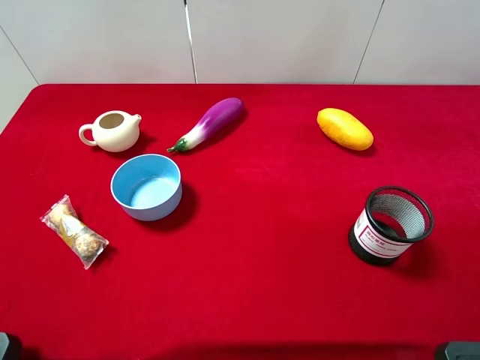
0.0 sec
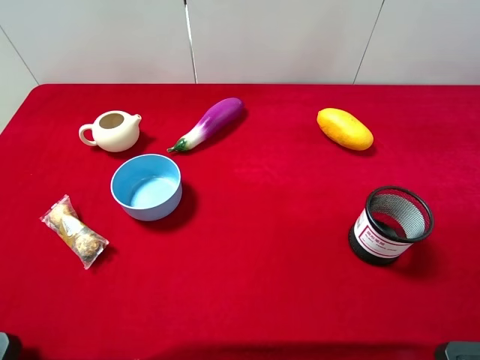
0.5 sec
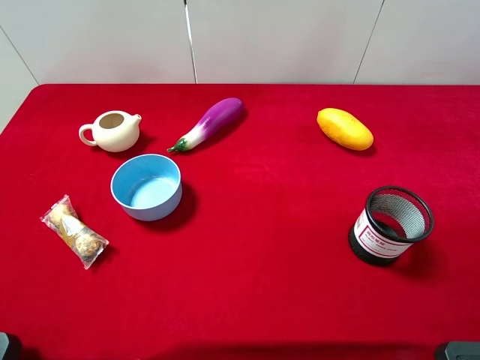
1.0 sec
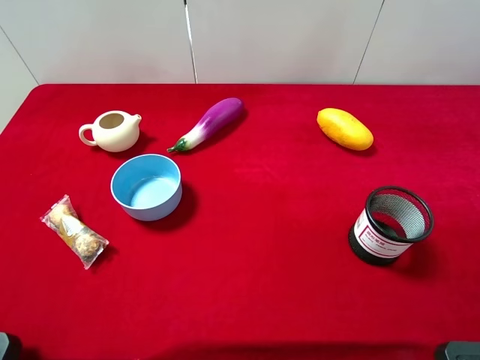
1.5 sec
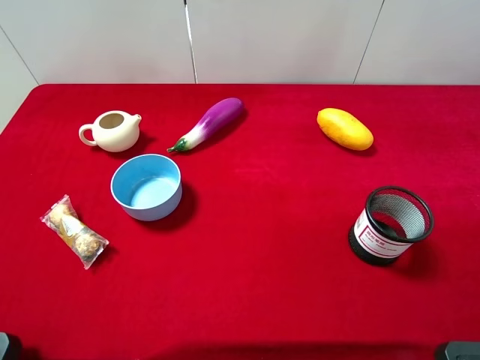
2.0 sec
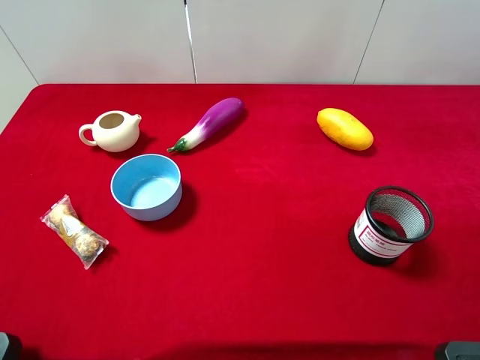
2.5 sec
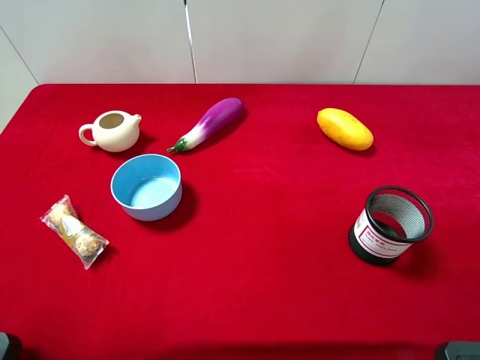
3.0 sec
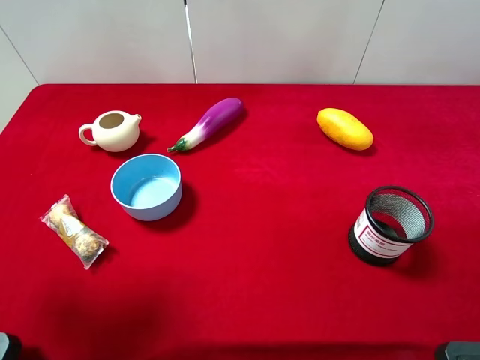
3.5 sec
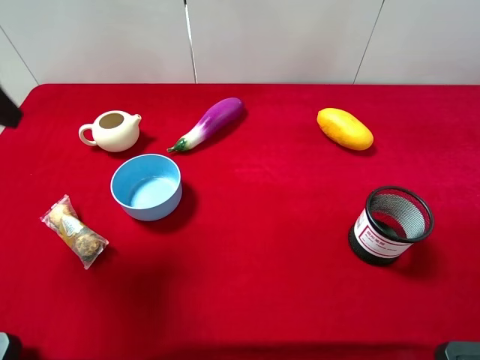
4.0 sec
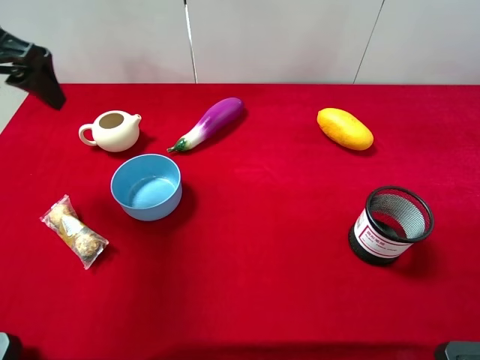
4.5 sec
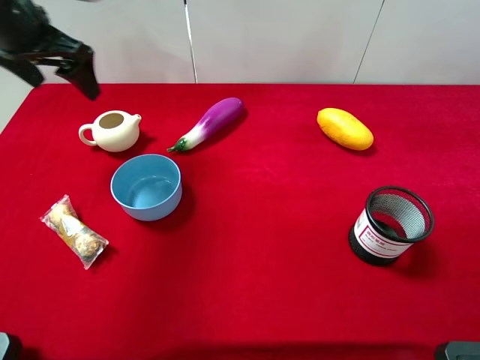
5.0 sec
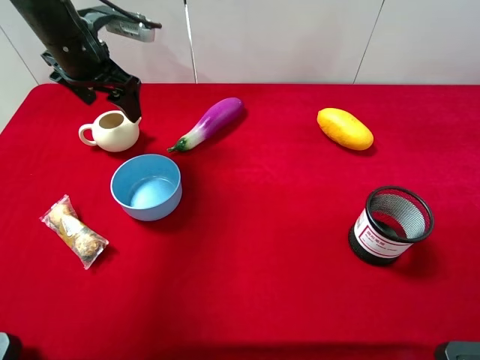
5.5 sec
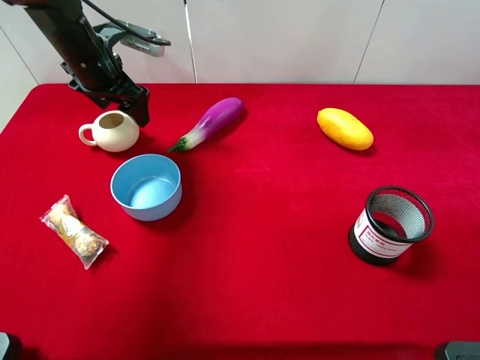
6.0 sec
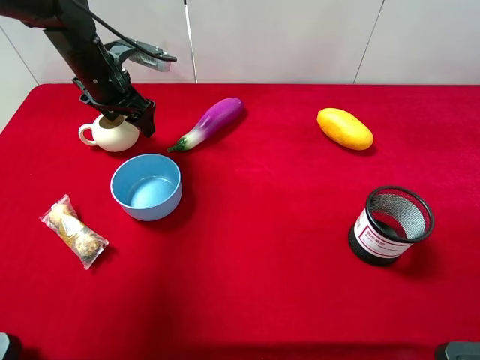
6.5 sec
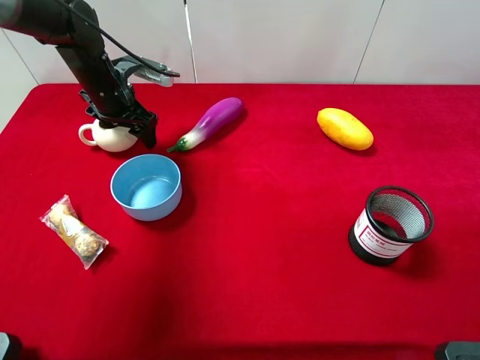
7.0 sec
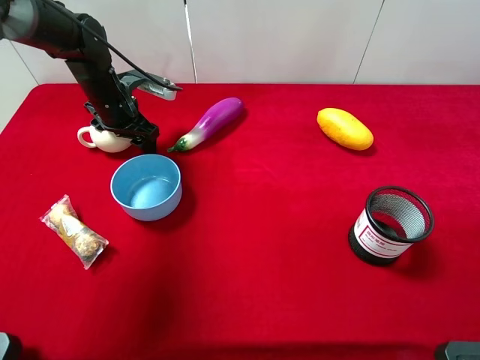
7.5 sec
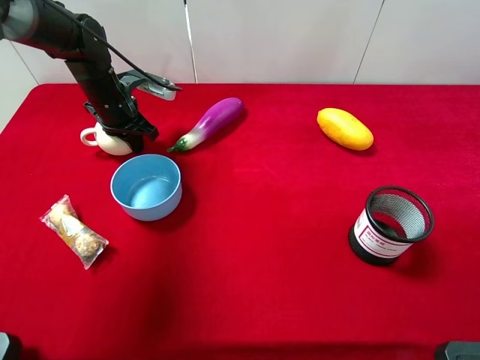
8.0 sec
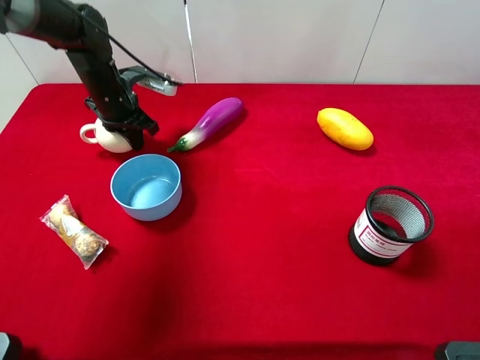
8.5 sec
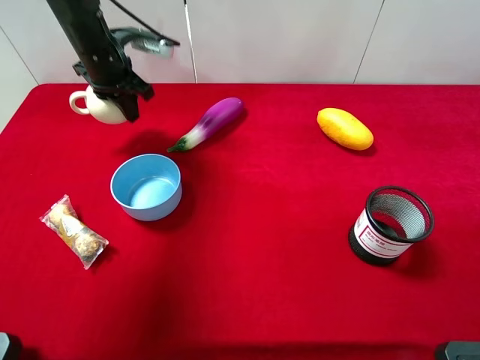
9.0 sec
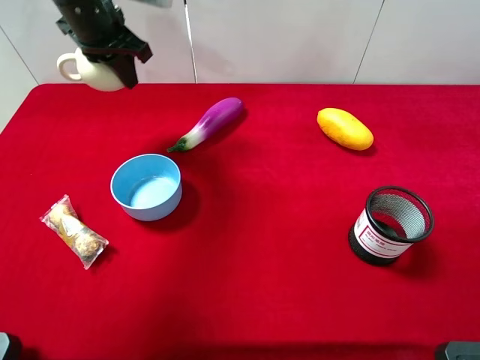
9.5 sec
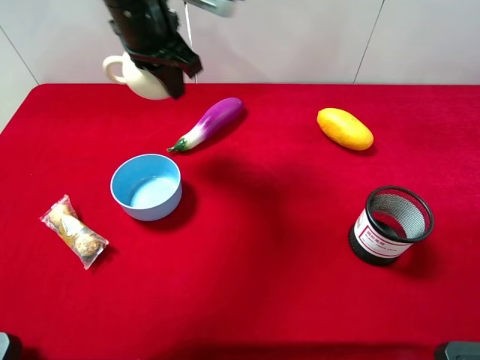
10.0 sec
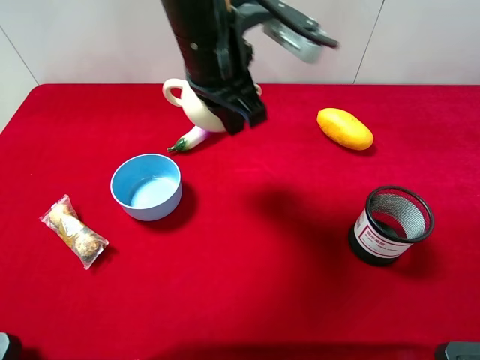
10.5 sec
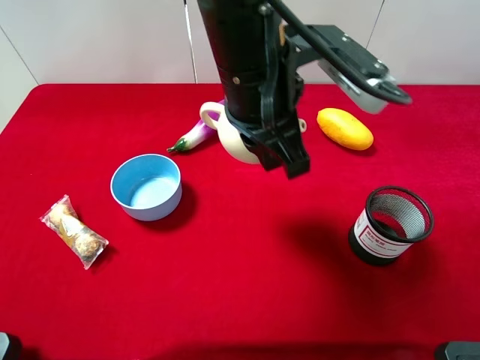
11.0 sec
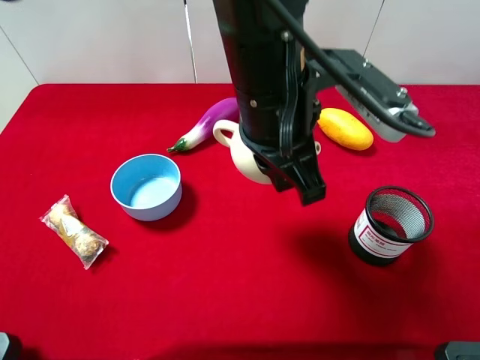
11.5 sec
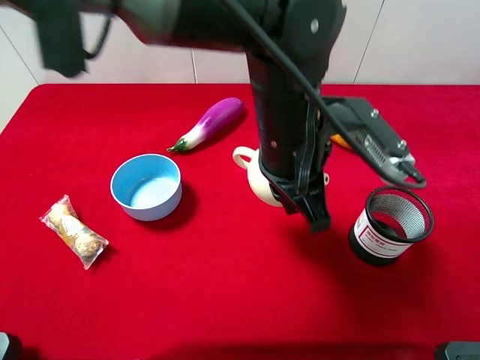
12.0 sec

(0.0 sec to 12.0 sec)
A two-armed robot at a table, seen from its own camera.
Task of the whole recording: the gripper move the object.
Step, 0.0 sec - 8.0 sec: Grasp the teapot with the left gripper.
0.0 sec - 2.0 sec: Neither gripper changes place.
2.0 sec - 4.0 sec: The left gripper travels forward by about 20 cm.
4.0 sec - 6.0 sec: The left gripper moves forward and downward, about 25 cm.
6.0 sec - 8.0 sec: The left gripper heads downward, covering approximately 10 cm, and closes.
8.0 sec - 10.0 sec: The left gripper goes roughly 20 cm upward and to the right.
10.0 sec - 12.0 sec: The left gripper shifts about 20 cm to the right and backward.

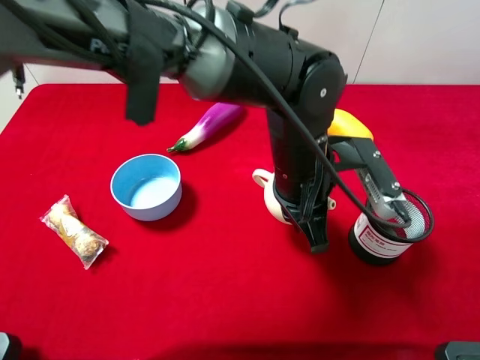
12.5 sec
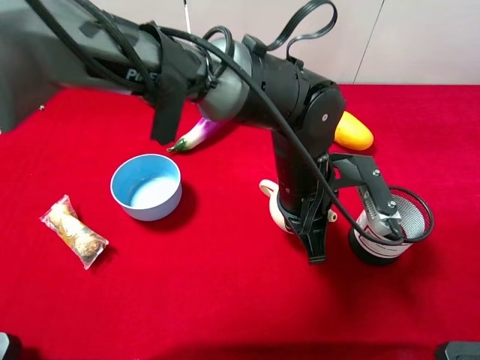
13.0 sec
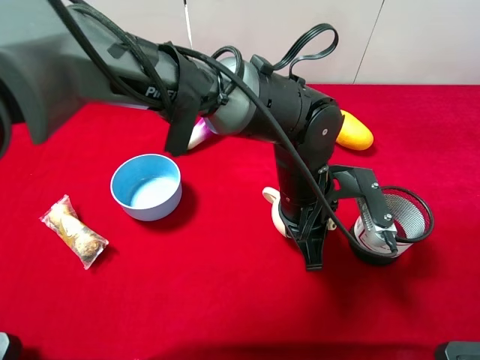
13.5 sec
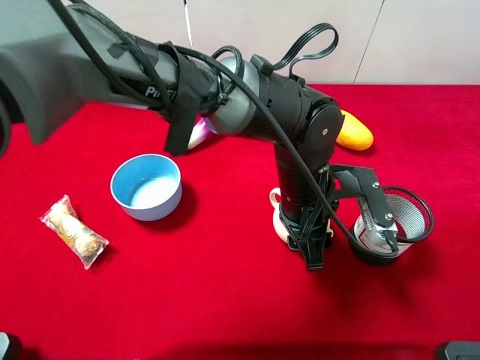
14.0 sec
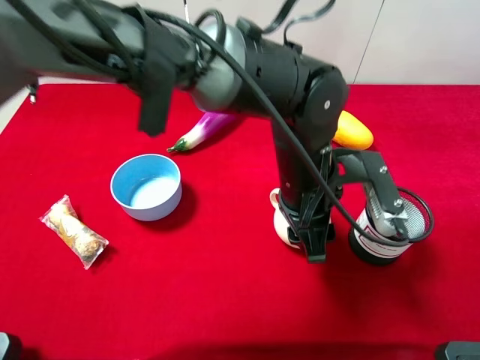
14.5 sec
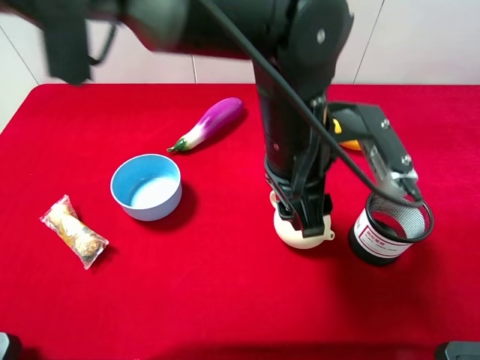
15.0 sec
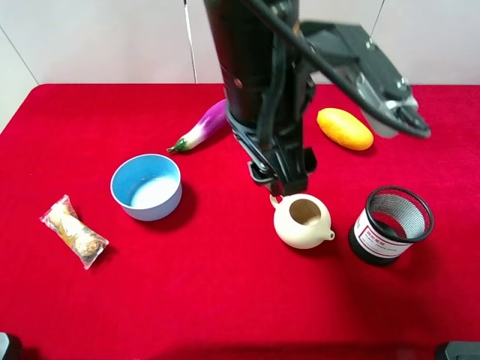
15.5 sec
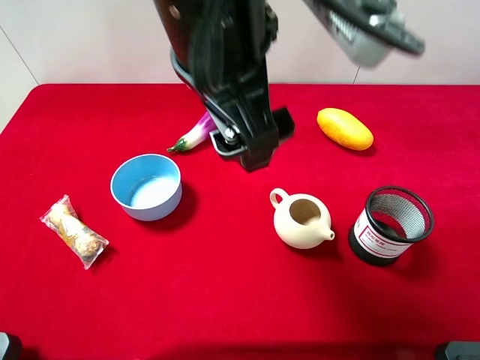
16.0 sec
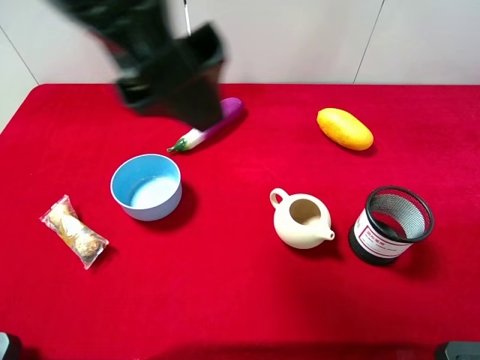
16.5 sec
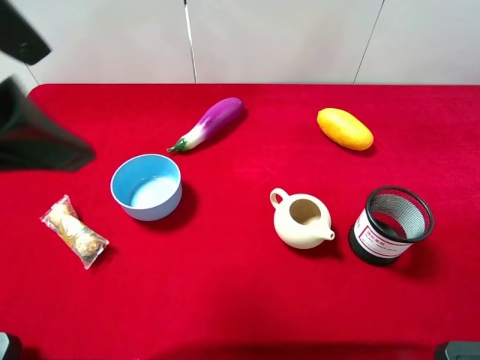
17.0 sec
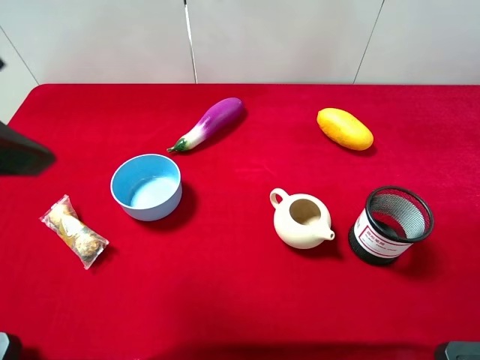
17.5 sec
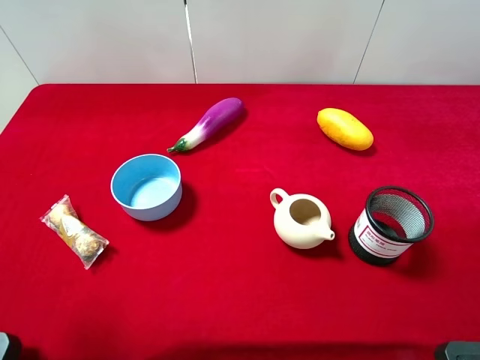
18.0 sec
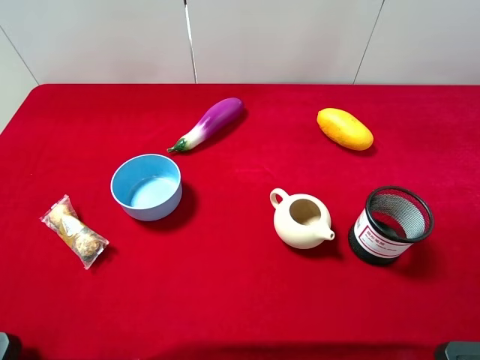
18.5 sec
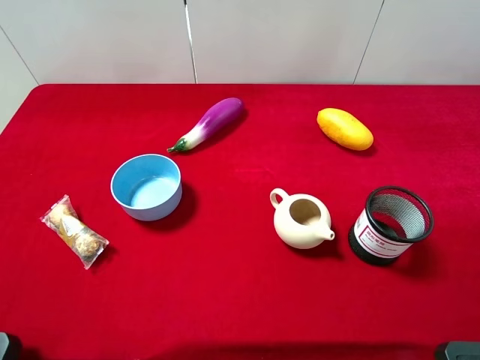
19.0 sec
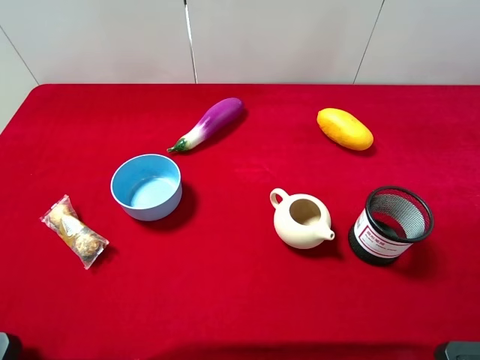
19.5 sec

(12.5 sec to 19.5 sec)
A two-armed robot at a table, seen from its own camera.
Task of the whole recording: the gripper move the object.
Step, 12.5 sec - 15.0 sec: Place the teapot on the table with the left gripper.
12.5 sec - 14.5 sec: The left gripper opens up.
14.5 sec - 16.0 sec: The left gripper travels upward and to the left by approximately 20 cm, and opens.
16.0 sec - 17.5 sec: The left gripper travels to the left by roughly 20 cm.
17.5 sec - 19.5 sec: The left gripper moves to the left, backward and downward, about 20 cm.

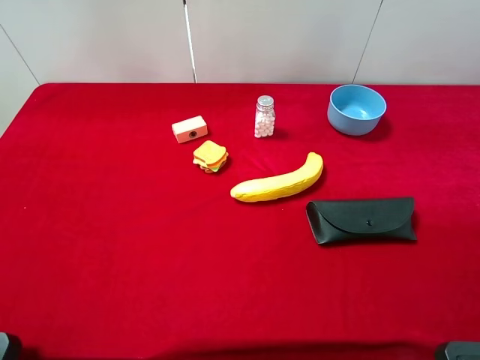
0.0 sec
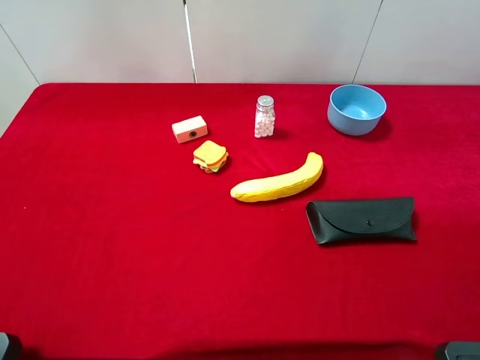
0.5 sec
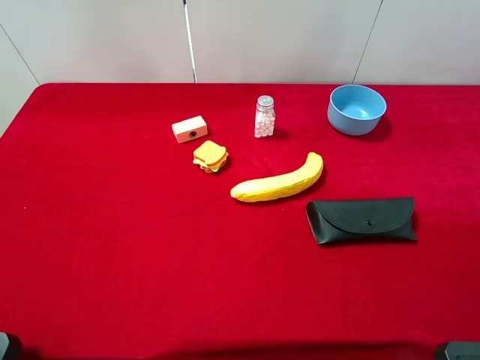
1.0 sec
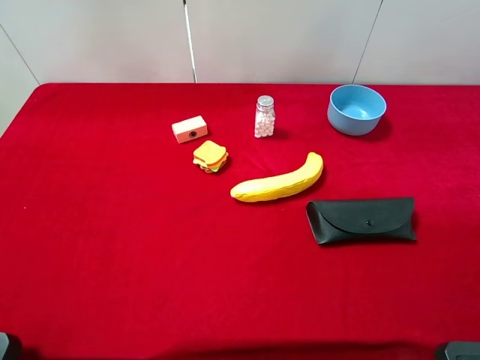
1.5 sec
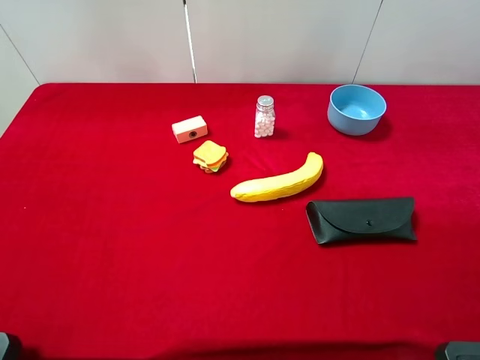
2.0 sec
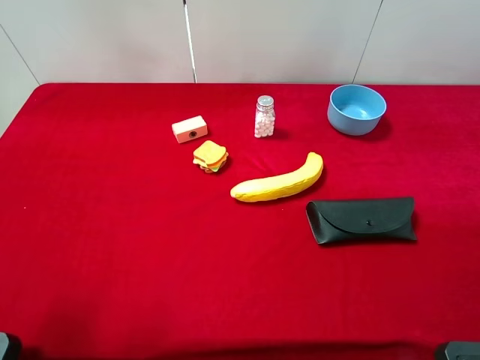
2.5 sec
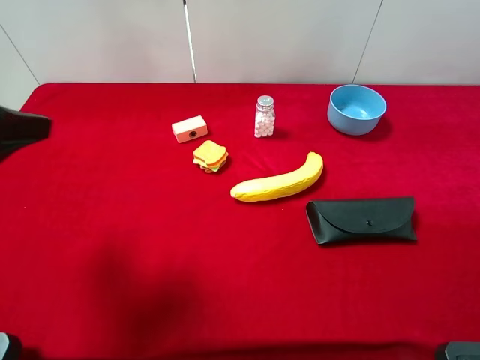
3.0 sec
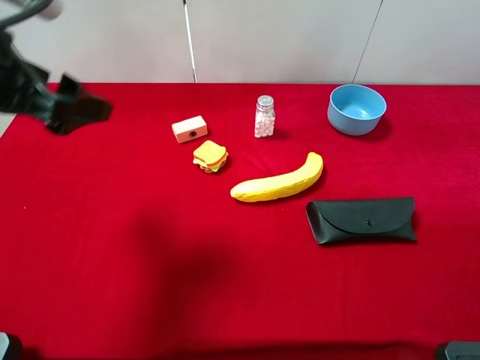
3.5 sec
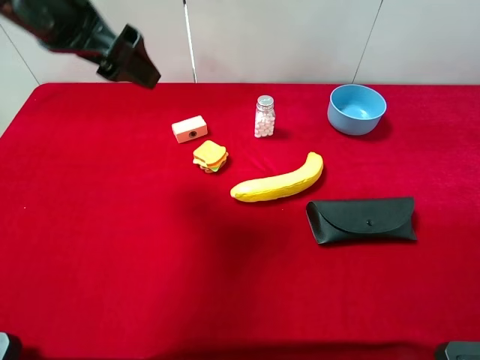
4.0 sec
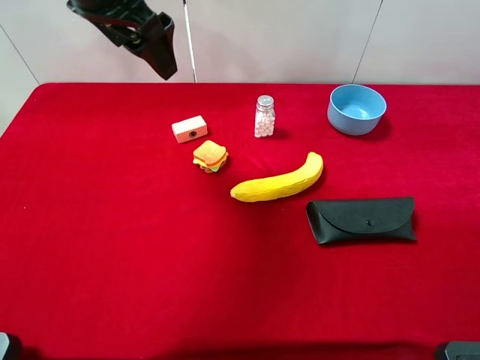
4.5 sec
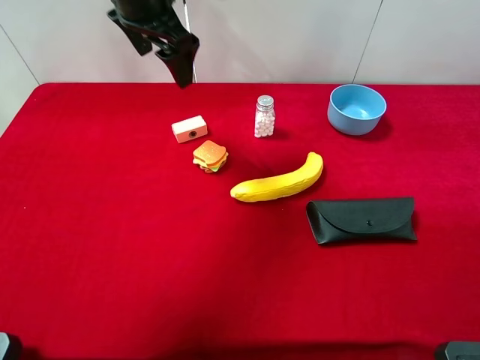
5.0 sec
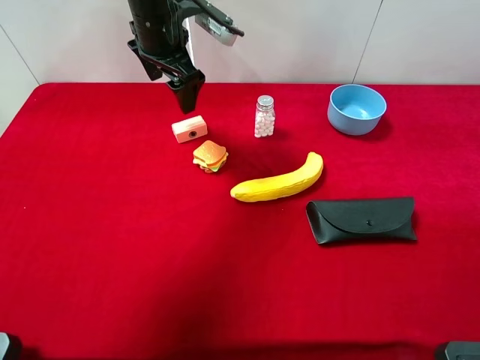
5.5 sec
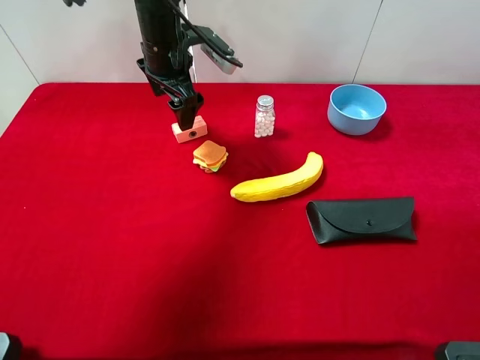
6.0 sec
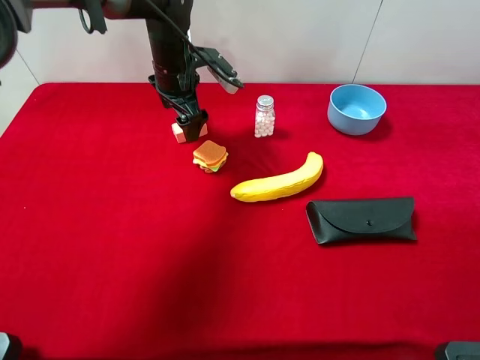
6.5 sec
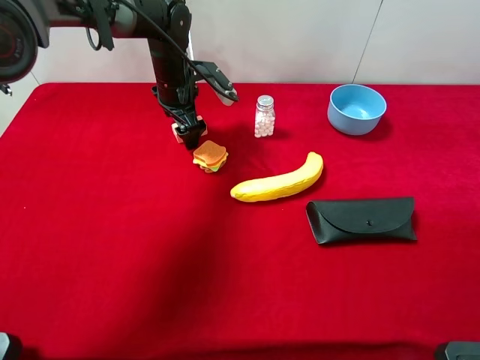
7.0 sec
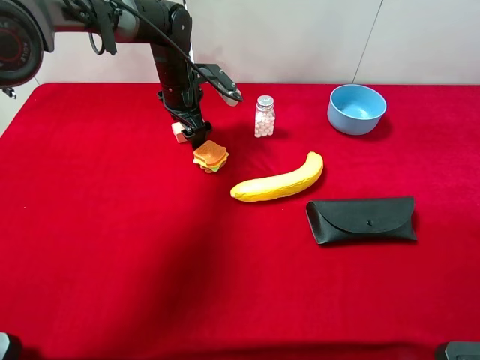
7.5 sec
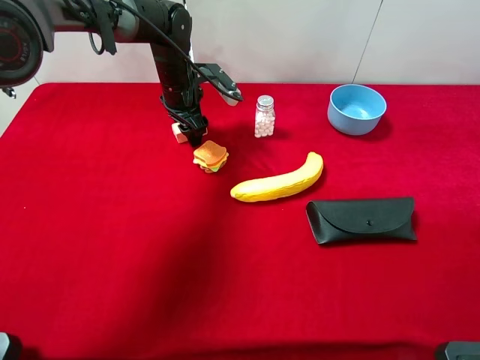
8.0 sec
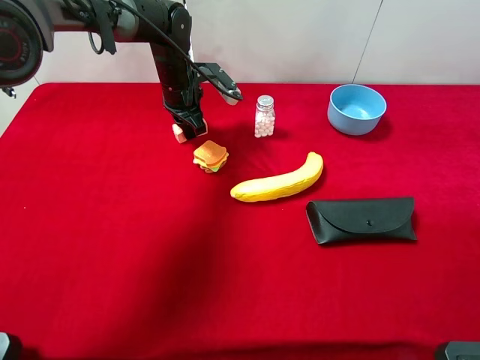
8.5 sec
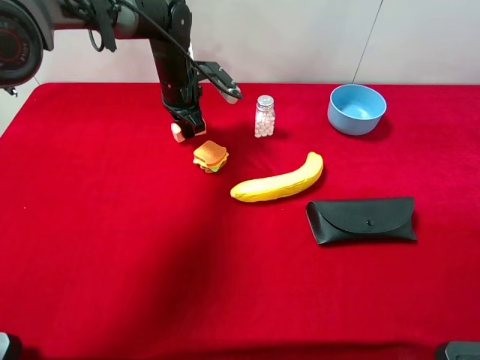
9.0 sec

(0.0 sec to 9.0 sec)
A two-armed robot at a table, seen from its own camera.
Task of the whole recording: the gripper move the object.
Step, 0.0 sec - 8.5 sec: Grasp the pink cake with the left gripper.
0.0 sec - 2.0 sec: Both grippers stay about where they are.
2.0 sec - 4.5 sec: The left gripper shifts roughly 40 cm forward and to the right.
4.5 sec - 7.0 sec: The left gripper travels downward and forward by approximately 25 cm.
7.0 sec - 9.0 sec: The left gripper closes its fingers.
